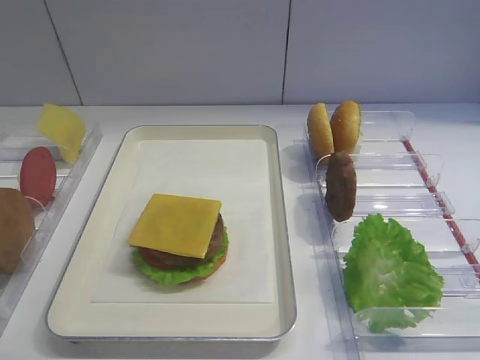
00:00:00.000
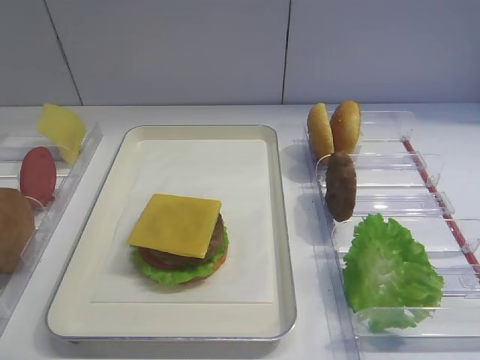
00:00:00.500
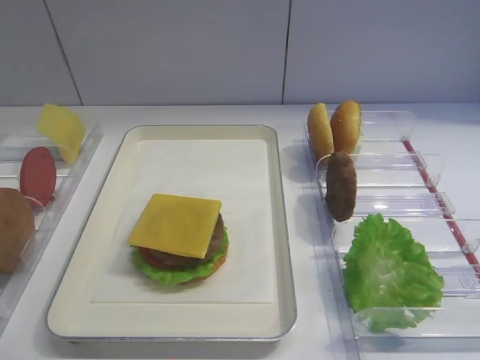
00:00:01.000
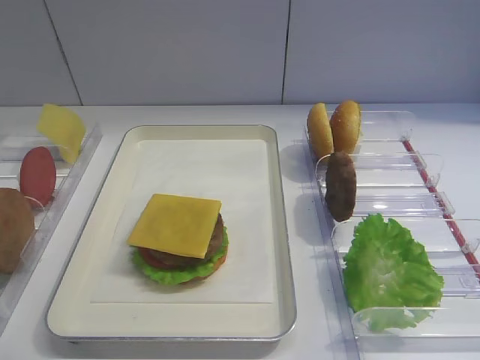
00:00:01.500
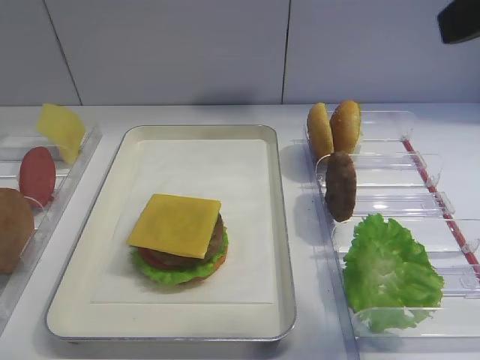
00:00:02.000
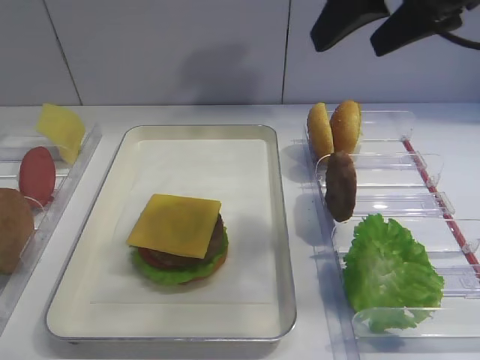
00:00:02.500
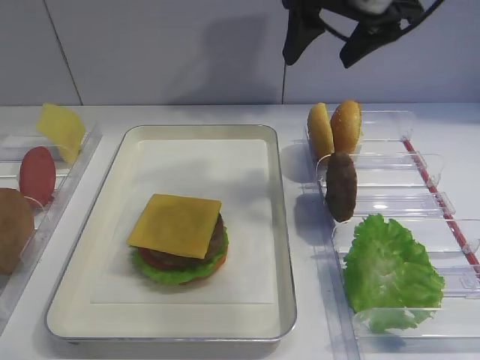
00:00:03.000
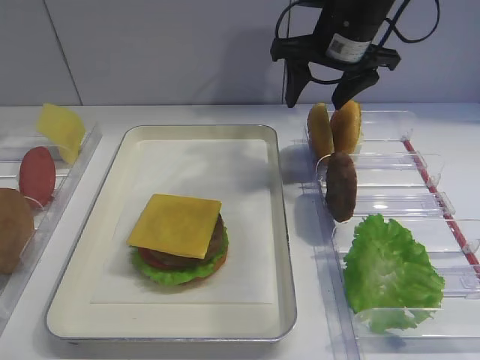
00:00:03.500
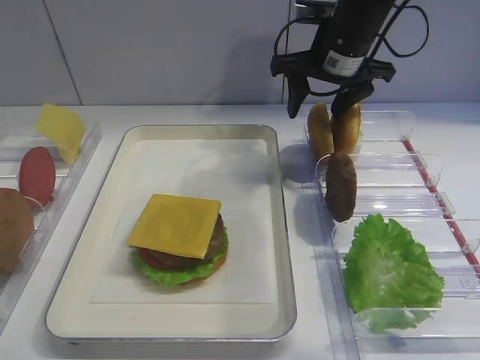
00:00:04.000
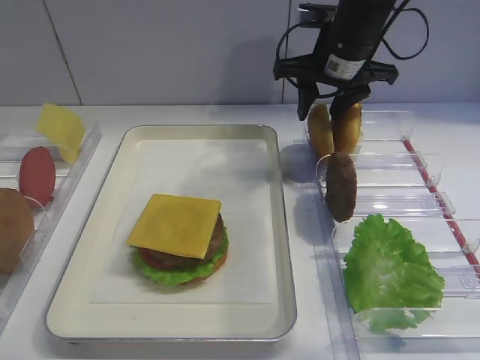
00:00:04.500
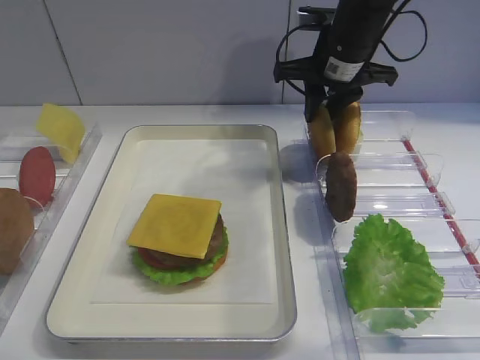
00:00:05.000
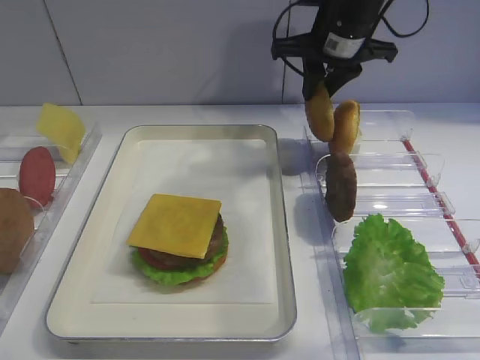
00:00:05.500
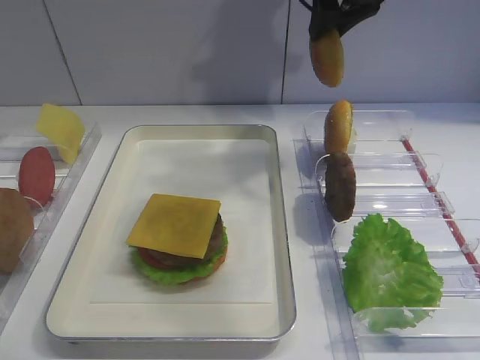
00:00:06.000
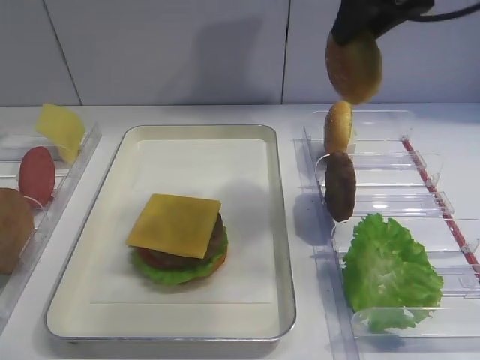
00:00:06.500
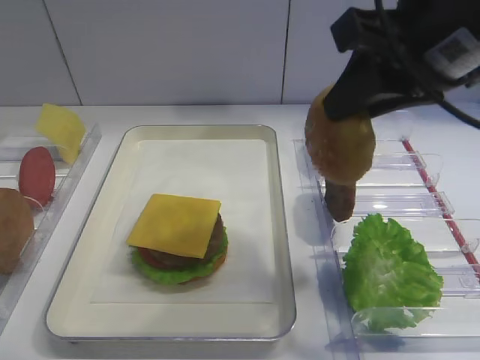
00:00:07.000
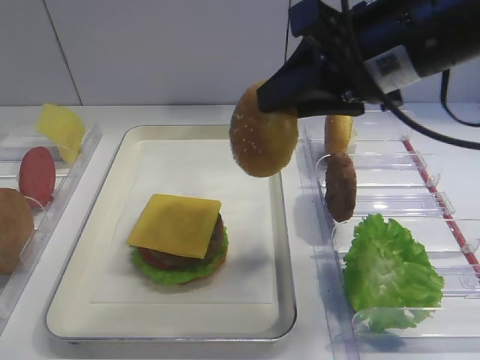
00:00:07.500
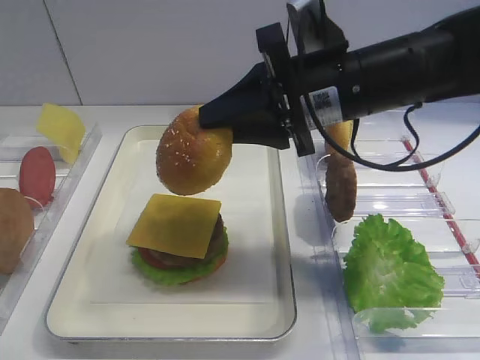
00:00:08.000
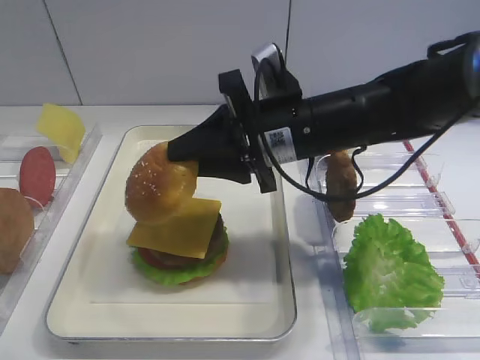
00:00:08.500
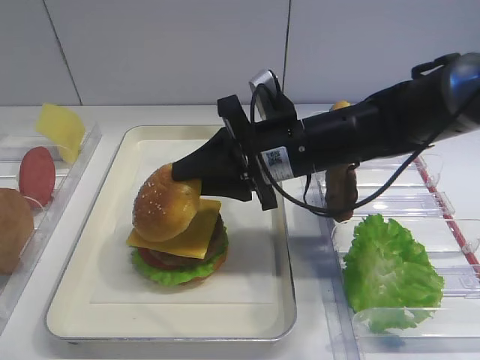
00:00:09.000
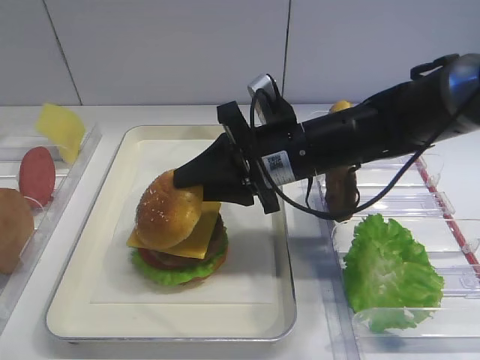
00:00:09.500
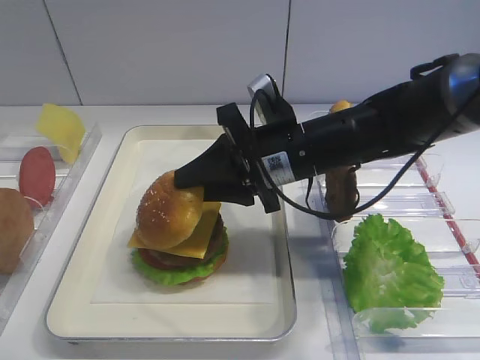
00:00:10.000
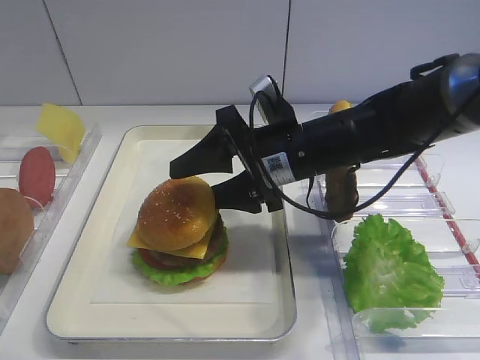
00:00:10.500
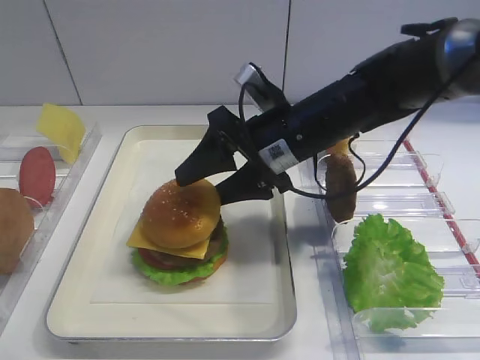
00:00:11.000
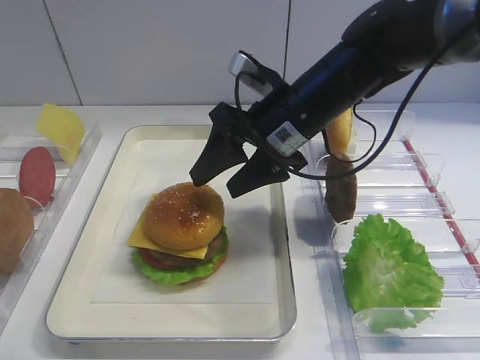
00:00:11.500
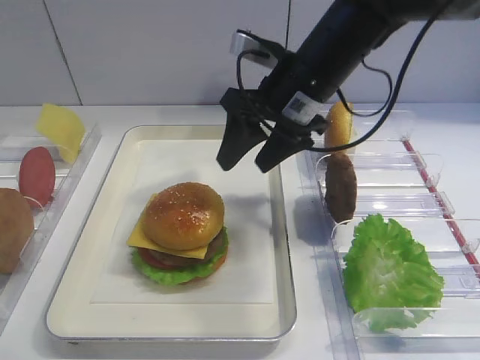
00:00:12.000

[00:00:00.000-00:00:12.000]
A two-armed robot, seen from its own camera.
Step, 00:00:00.000 to 00:00:05.500: Pick up the hamburger lid with the right gripper.
00:00:02.000 to 00:00:04.000: The right gripper heads forward and downward, covering about 30 cm.
00:00:04.000 to 00:00:06.000: The right gripper heads upward, covering about 10 cm, and closes its fingers.
00:00:06.000 to 00:00:08.000: The right gripper shifts about 15 cm backward and downward.
00:00:08.000 to 00:00:10.000: The right gripper is displaced downward by roughly 10 cm.
00:00:10.000 to 00:00:12.000: The right gripper travels upward by approximately 5 cm, and opens.

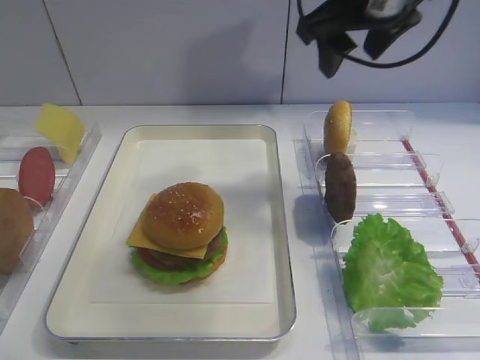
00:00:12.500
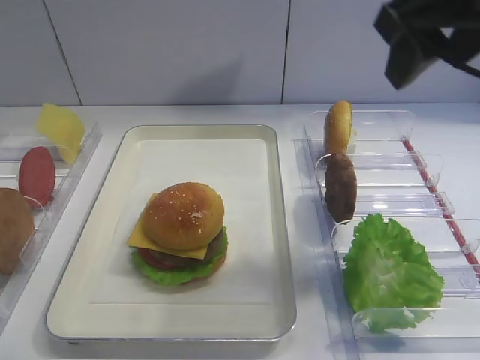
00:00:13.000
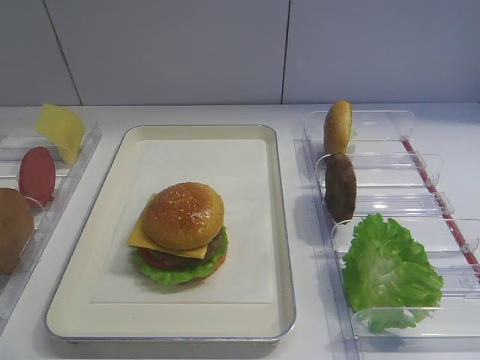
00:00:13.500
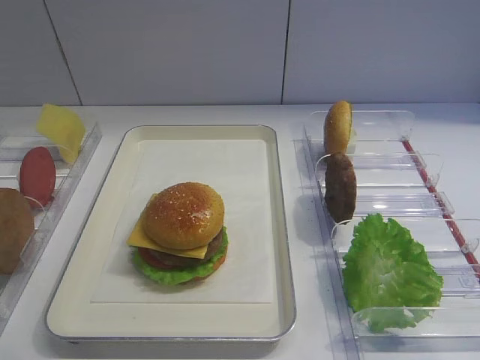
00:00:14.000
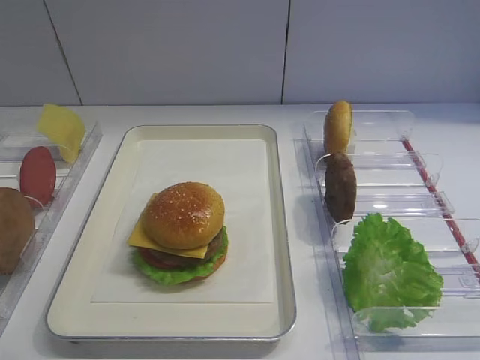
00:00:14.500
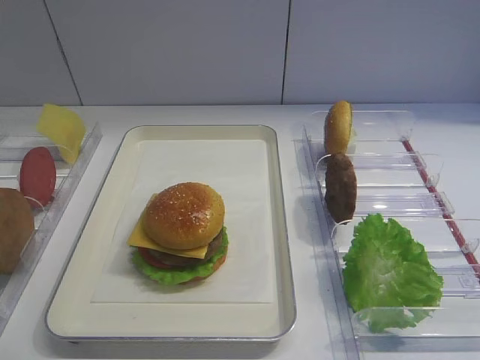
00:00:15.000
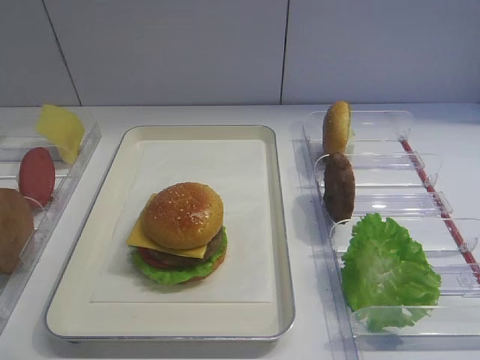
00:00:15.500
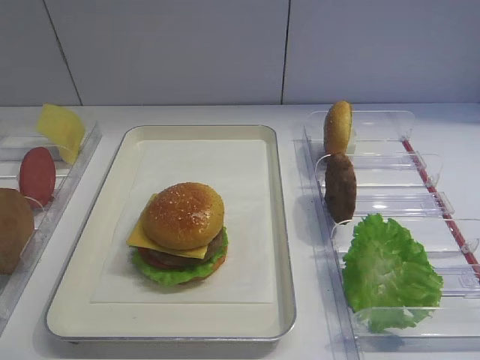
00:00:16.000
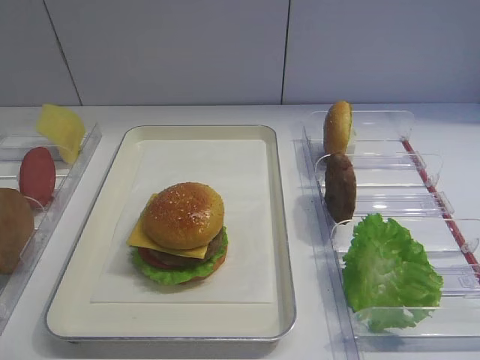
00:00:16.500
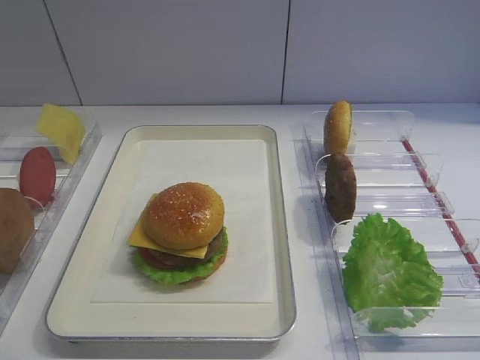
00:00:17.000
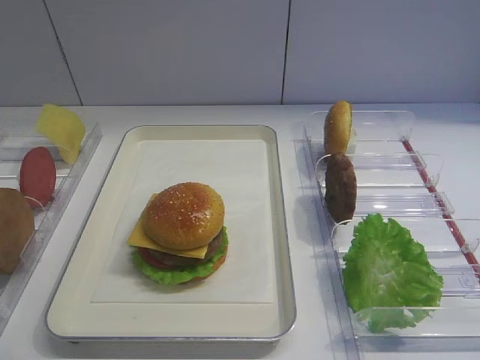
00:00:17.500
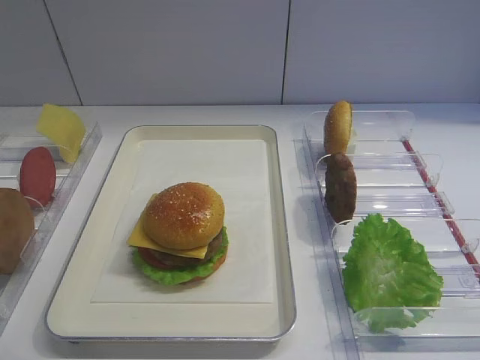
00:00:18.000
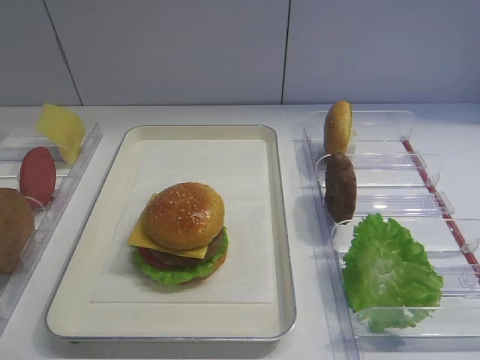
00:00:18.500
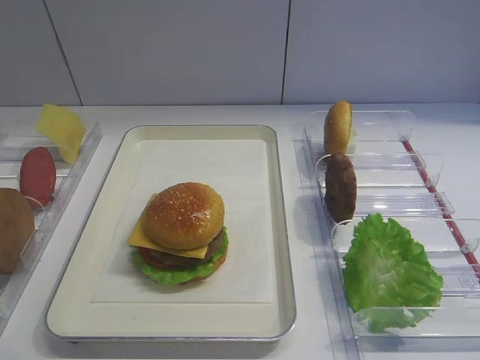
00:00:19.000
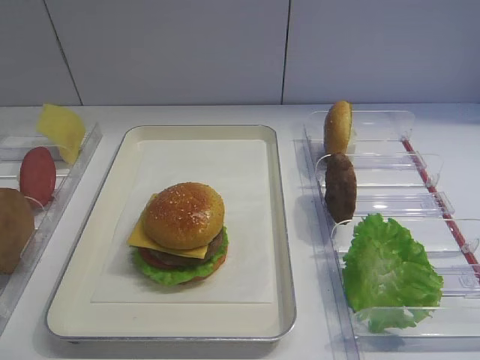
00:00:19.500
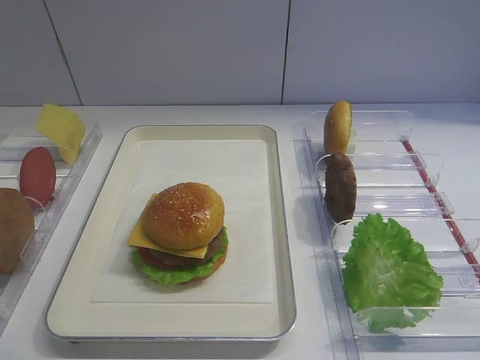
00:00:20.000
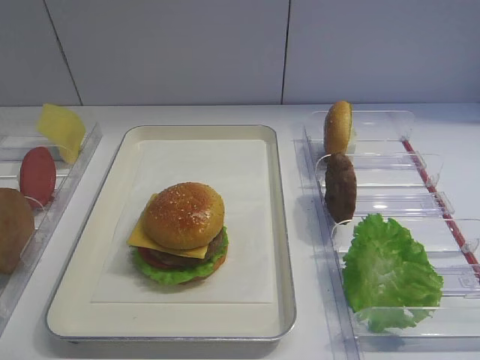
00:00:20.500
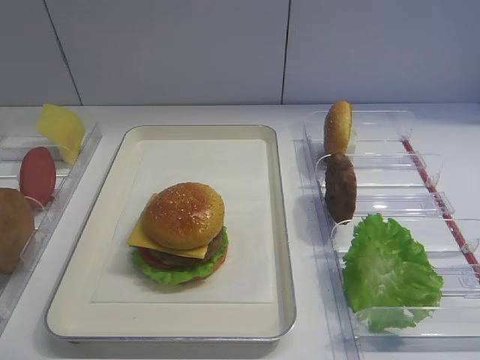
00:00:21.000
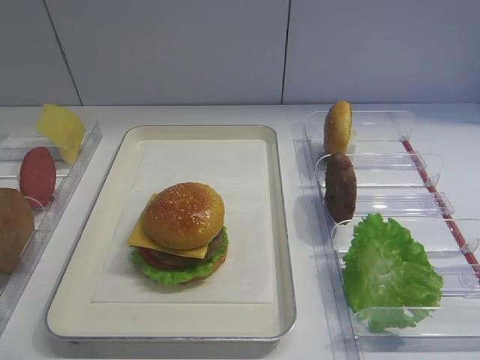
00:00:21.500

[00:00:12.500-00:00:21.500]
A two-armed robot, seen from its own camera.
00:00:12.500 to 00:00:14.500: The right gripper heads backward, covering some 40 cm.
00:00:17.000 to 00:00:21.500: Both grippers stay put.

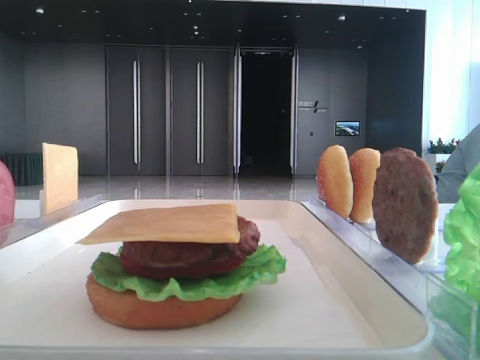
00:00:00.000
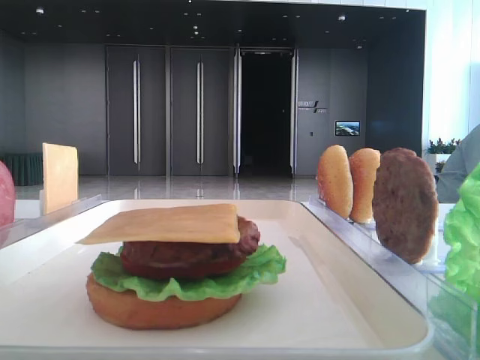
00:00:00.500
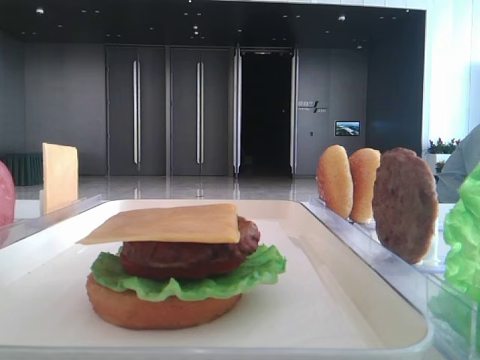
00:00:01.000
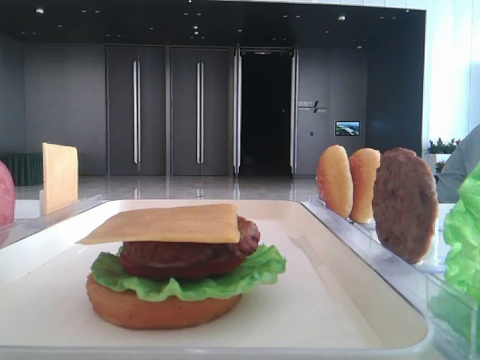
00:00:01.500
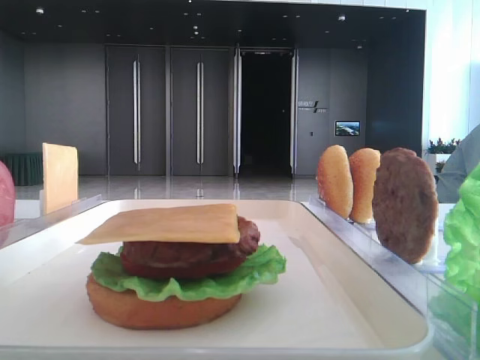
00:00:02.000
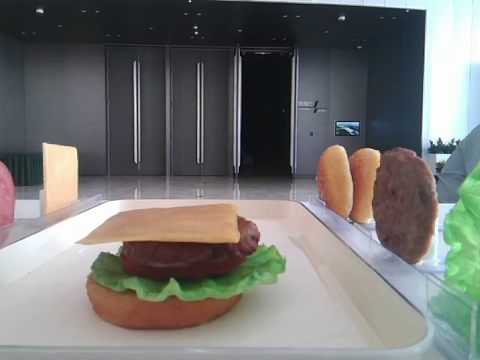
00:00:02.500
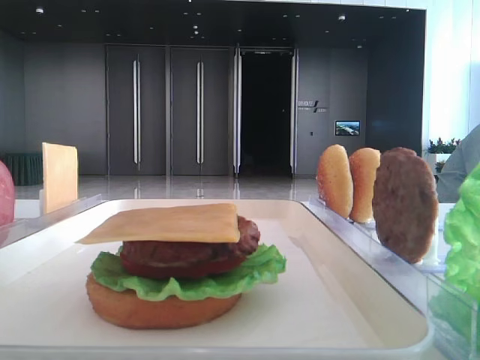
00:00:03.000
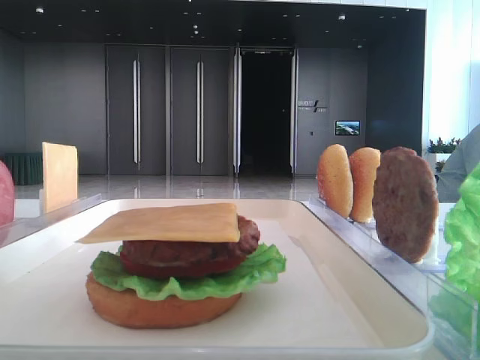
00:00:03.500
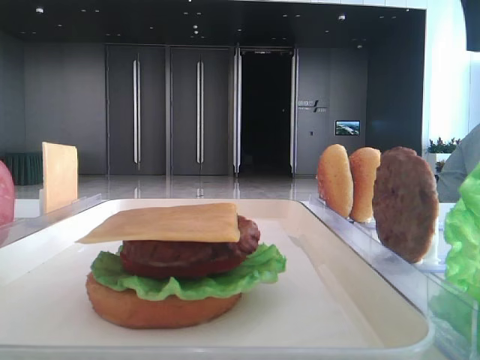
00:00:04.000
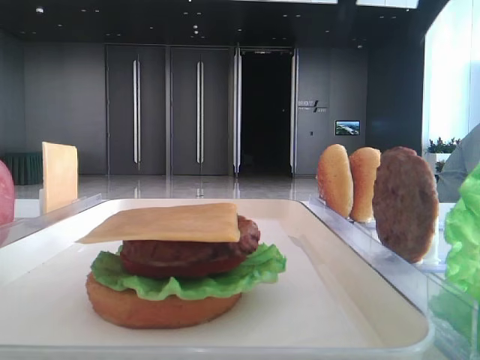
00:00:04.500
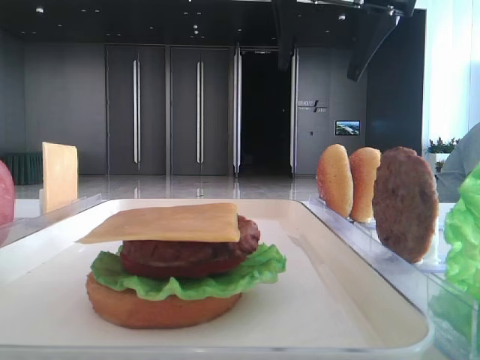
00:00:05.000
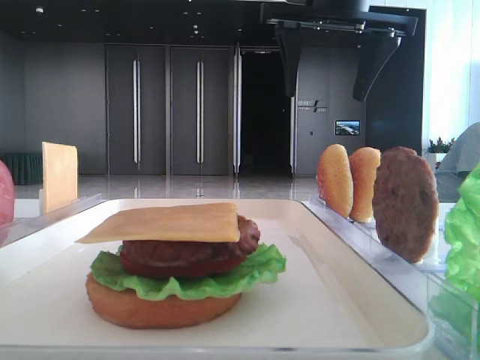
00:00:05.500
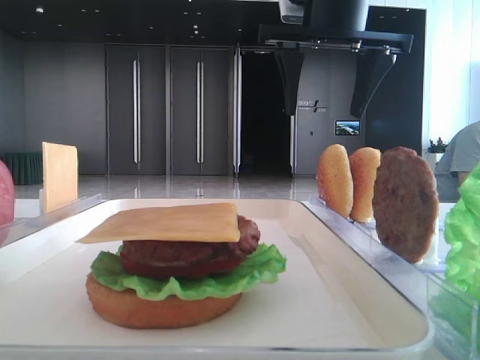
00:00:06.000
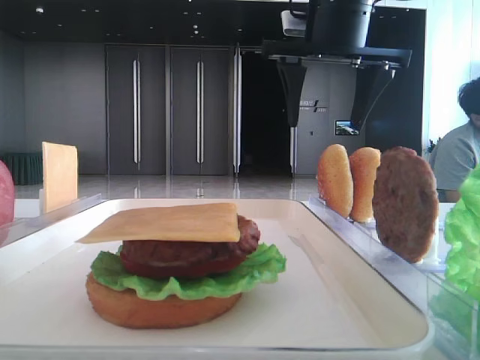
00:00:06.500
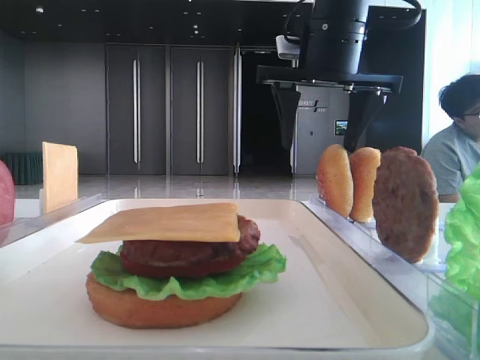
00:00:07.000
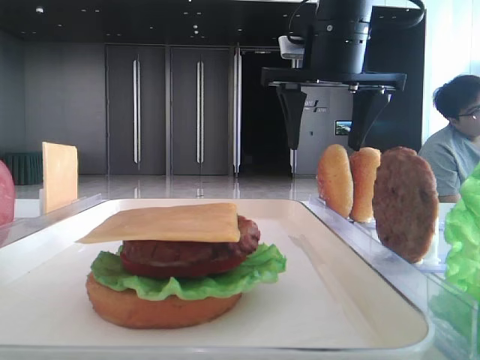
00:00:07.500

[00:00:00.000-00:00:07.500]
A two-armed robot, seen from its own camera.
00:00:02.000 to 00:00:04.000: The right gripper moves forward, approximately 35 cm.
00:00:04.000 to 00:00:05.500: The right gripper heads to the left, covering about 15 cm.
00:00:05.500 to 00:00:07.500: The right gripper travels downward by some 5 cm.
